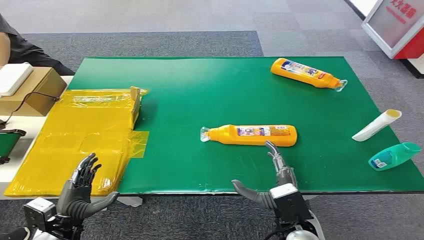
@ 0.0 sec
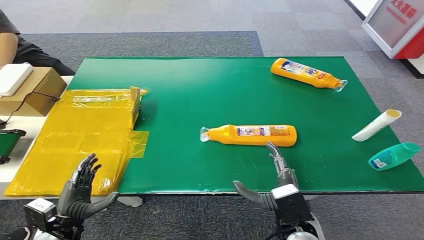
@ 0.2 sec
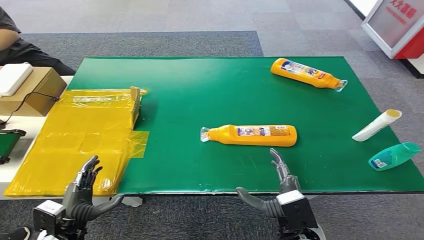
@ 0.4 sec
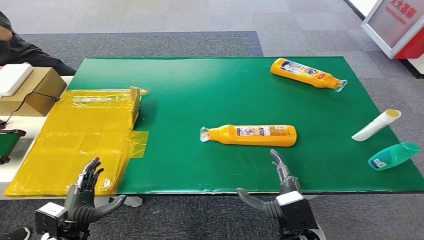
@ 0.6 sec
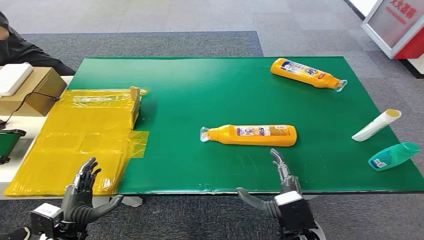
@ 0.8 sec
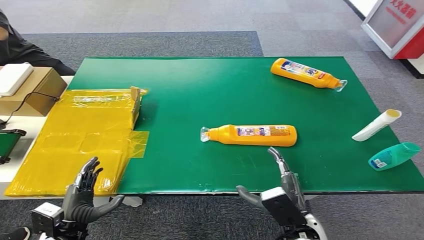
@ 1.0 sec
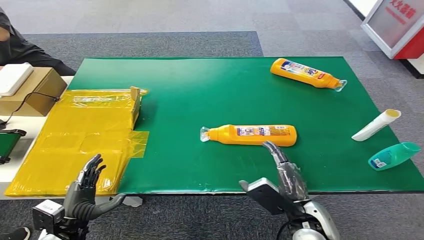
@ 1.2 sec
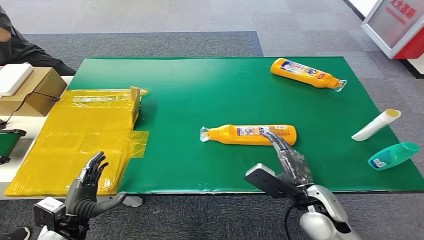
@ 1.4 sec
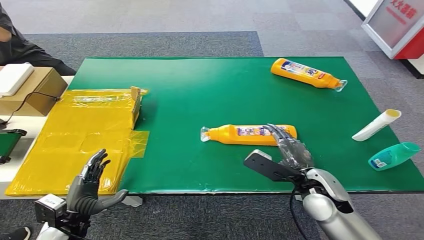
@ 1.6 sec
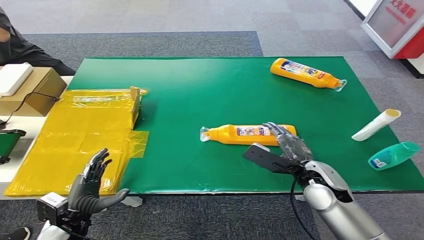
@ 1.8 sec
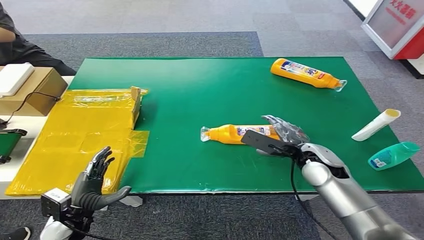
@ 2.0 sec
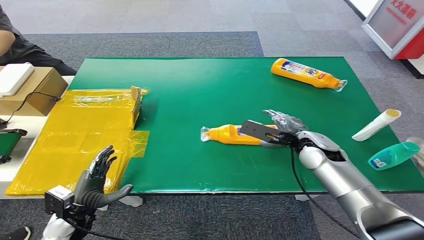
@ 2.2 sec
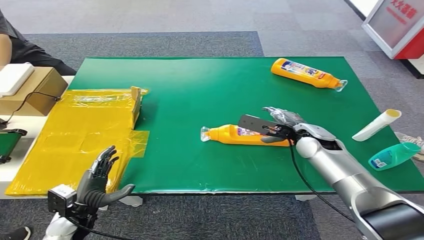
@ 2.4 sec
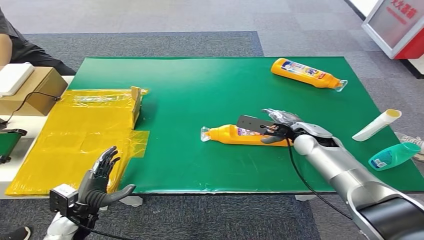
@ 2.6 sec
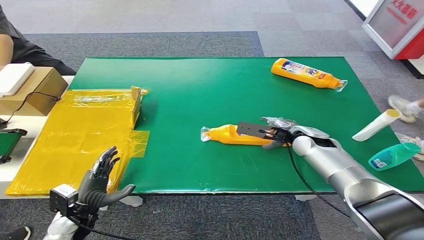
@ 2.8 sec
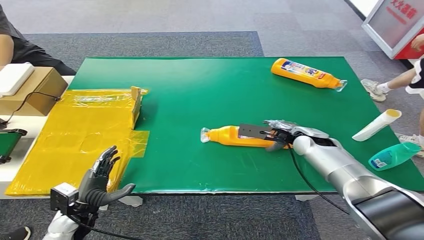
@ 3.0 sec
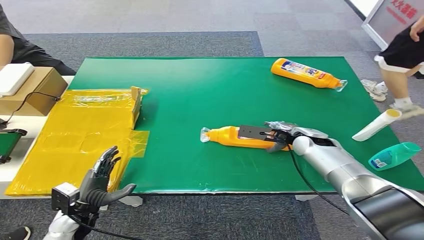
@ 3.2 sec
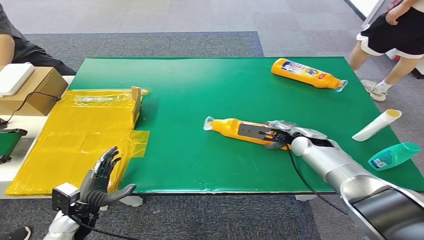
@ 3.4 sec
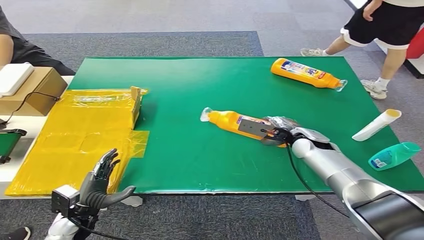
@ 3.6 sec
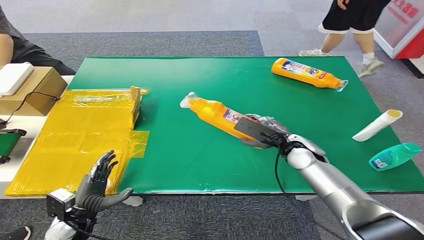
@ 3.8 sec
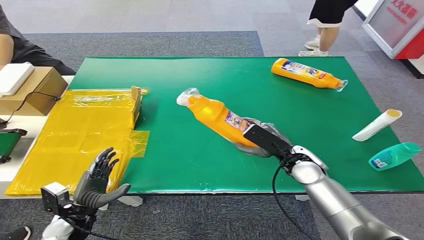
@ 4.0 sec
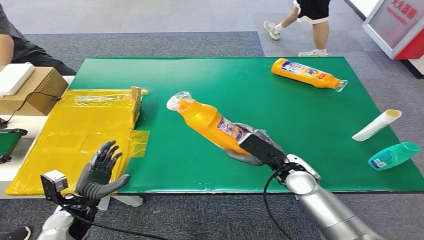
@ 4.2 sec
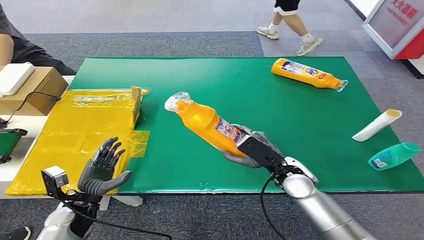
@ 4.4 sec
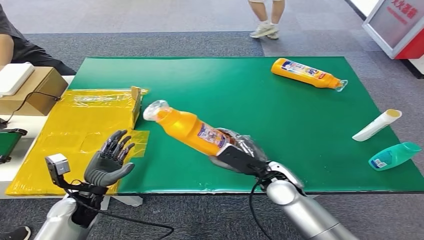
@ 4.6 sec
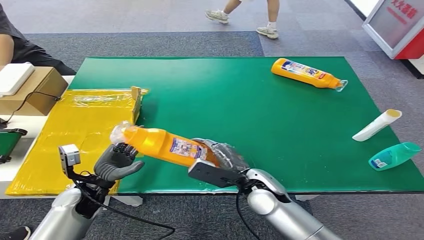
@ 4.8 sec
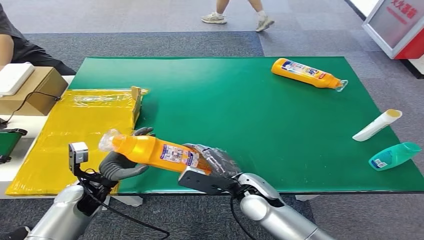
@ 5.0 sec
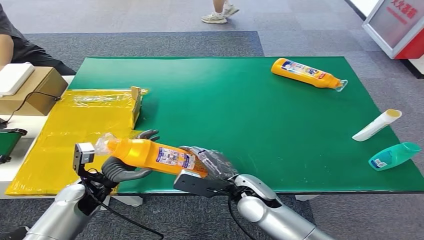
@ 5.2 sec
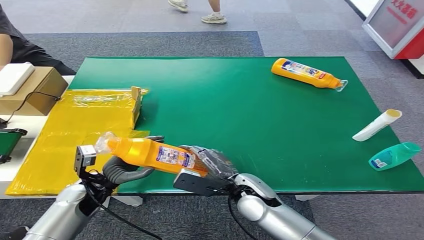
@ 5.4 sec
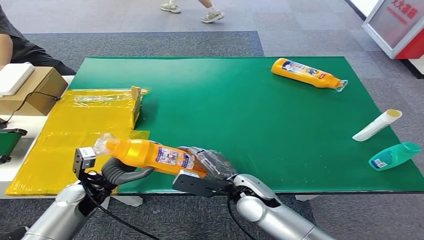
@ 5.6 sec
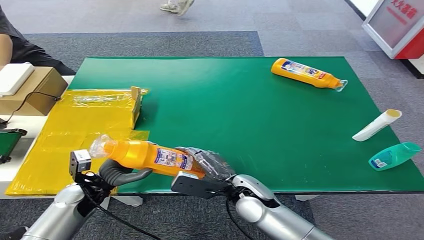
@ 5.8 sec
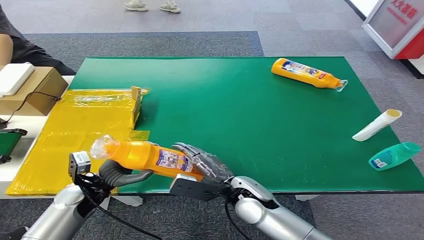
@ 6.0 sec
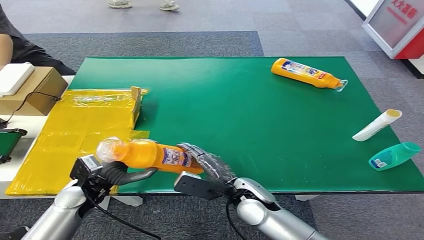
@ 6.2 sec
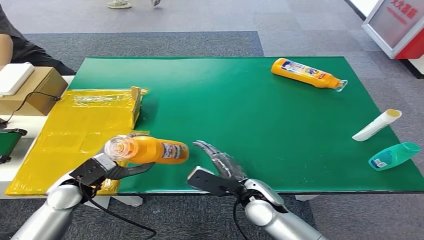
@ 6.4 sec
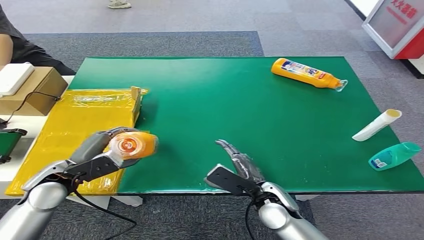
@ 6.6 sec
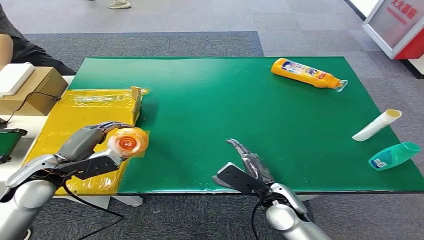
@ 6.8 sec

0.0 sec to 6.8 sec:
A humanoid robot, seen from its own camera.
Step, 0.0 sec to 4.4 sec: Pick up the bottle from the table.
Step, 4.8 sec to 6.8 sec: Turn the bottle to the front side.
1.4 sec to 2.8 sec: The right hand moves forward, some 20 cm.
2.8 sec to 4.0 sec: The right hand travels backward by approximately 10 cm.
5.4 sec to 6.8 sec: The right hand is displaced to the right by approximately 5 cm; the left hand moves upward and to the left, some 15 cm.

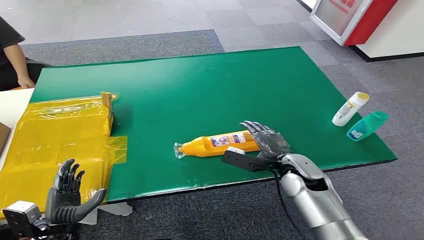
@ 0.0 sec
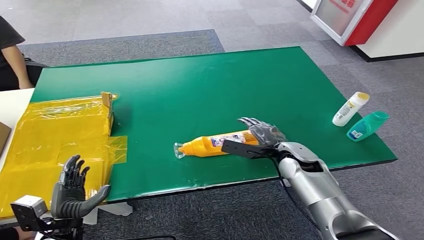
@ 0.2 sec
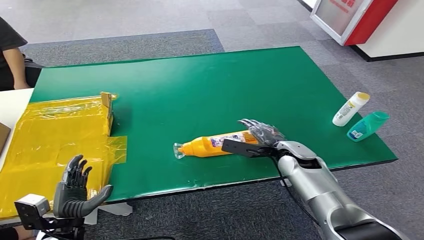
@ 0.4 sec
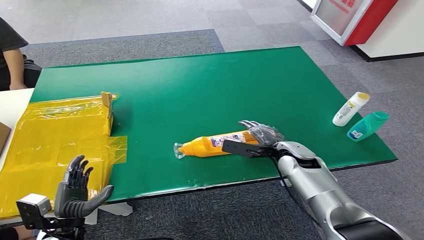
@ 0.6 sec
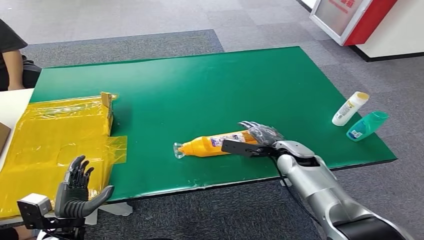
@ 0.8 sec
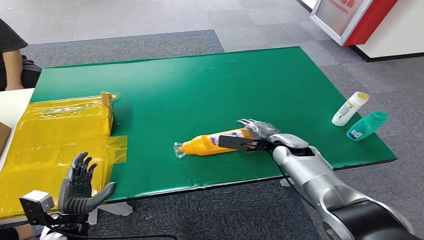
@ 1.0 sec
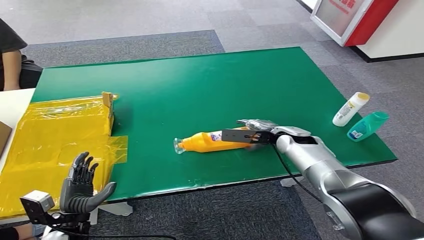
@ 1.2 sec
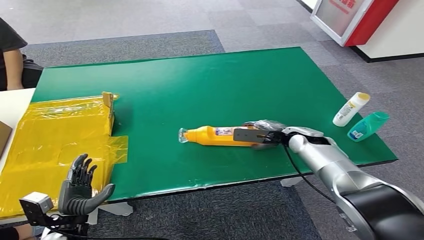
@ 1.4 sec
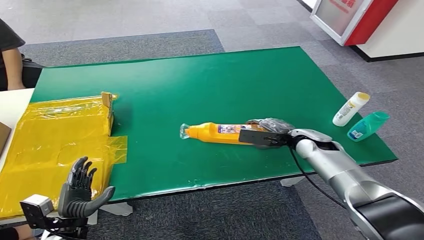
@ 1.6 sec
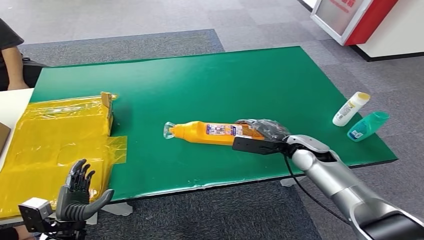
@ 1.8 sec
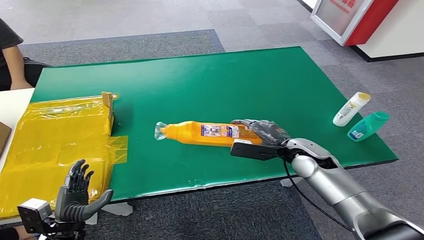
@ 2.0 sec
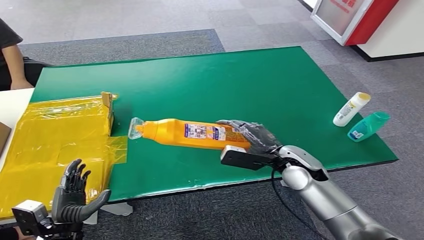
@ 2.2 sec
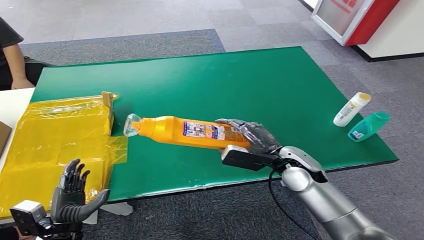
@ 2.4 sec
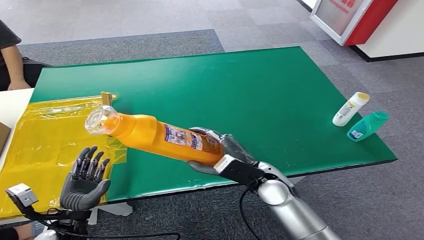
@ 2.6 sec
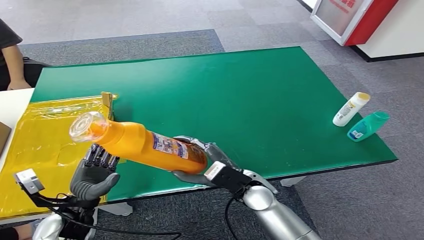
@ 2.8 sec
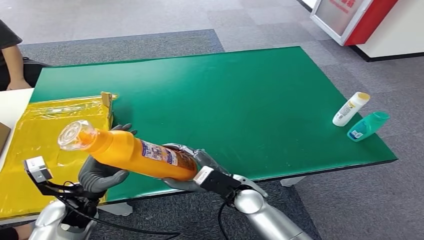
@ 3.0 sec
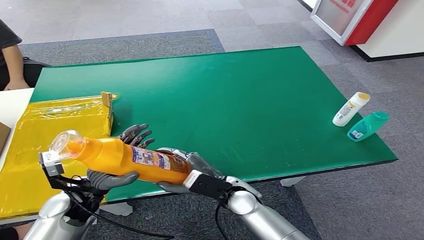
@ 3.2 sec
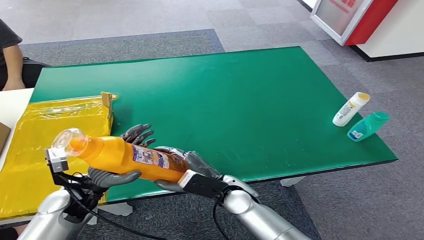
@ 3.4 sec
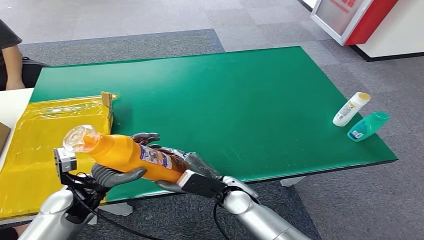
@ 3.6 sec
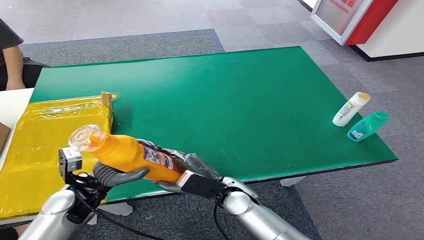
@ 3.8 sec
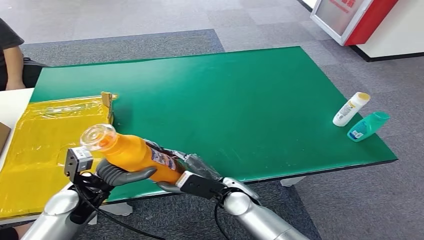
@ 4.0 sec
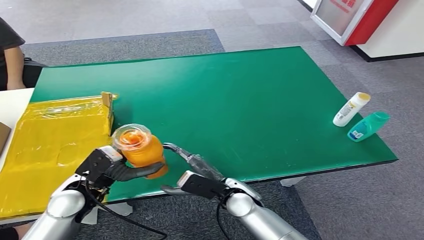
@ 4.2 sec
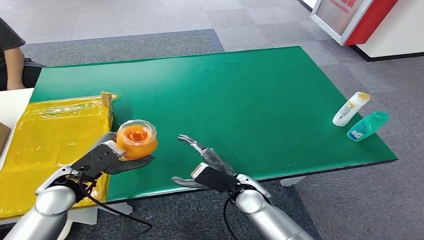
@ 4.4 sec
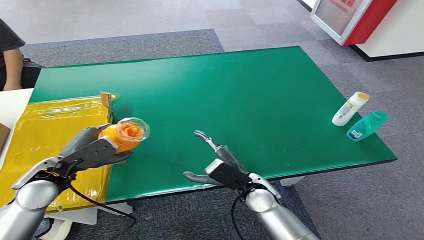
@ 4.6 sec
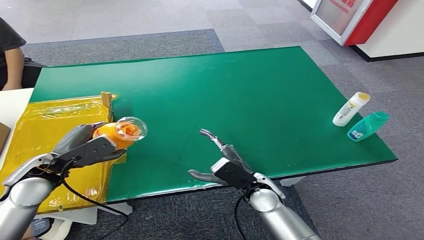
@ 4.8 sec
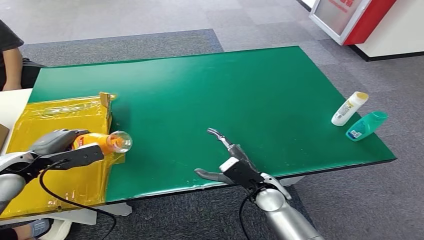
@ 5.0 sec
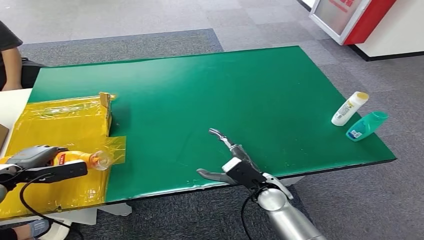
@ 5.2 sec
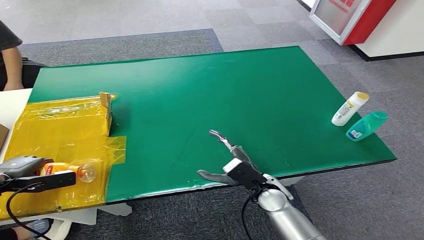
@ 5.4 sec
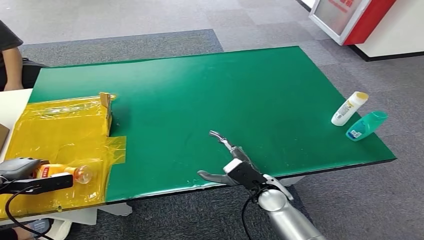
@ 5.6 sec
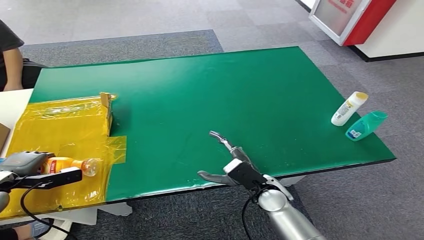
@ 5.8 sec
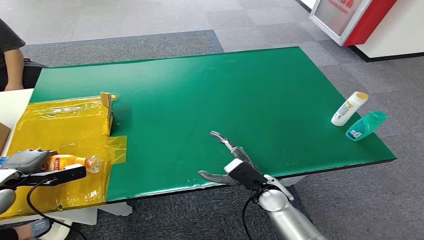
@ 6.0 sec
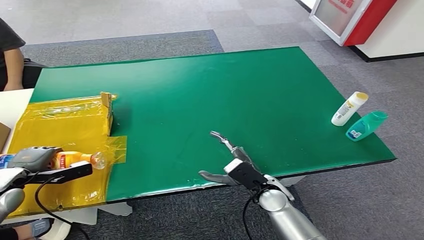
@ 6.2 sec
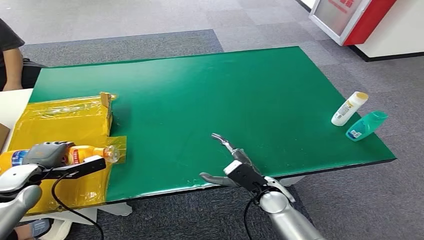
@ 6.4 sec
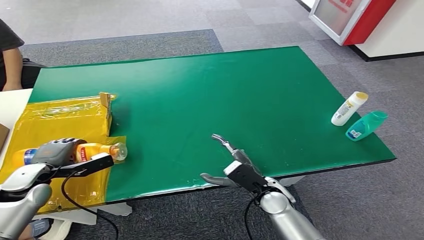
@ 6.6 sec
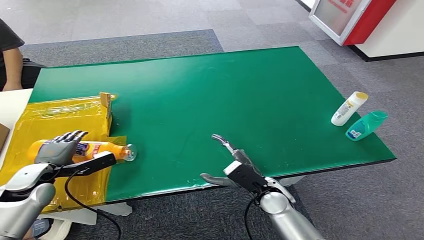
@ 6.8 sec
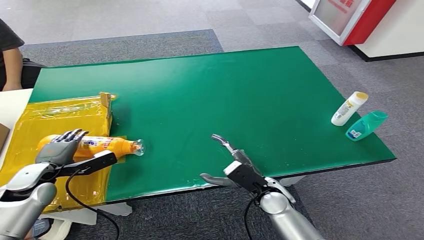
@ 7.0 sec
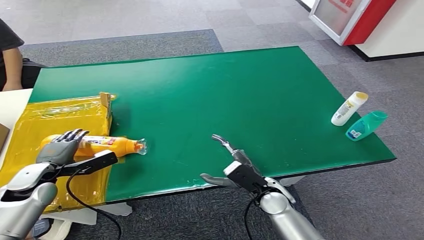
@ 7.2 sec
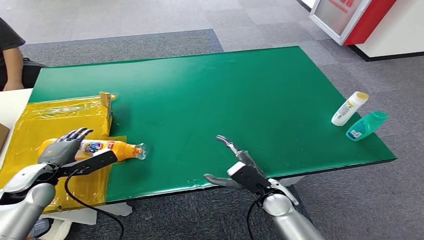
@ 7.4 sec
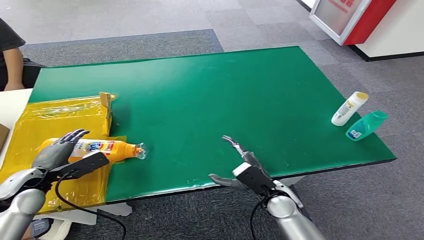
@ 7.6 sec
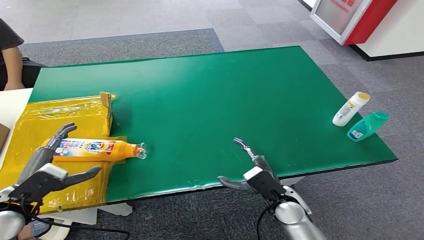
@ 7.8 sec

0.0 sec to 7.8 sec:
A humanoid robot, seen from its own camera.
Step, 0.0 sec to 2.0 sec: Pick up the bottle from the table.
Step, 2.2 sec to 7.8 sec: Turn the bottle to the front side.
1.6 sec to 3.2 sec: The left hand moves upward and forward, about 15 cm; the right hand goes about 25 cm to the left and backward.
3.2 sec to 4.6 sec: The left hand shifts about 5 cm upward.
4.6 sec to 6.2 sec: The left hand heads to the left and downward, covering approximately 15 cm.
6.2 sec to 7.8 sec: The left hand heads backward and to the right, covering roughly 10 cm.
